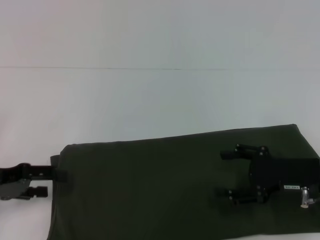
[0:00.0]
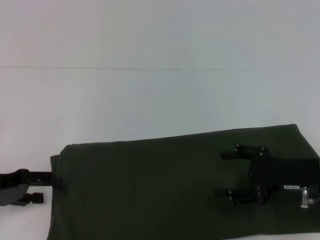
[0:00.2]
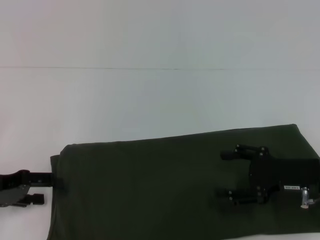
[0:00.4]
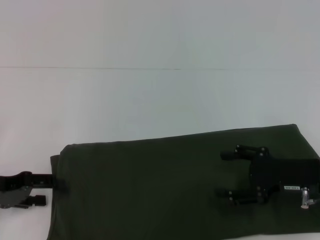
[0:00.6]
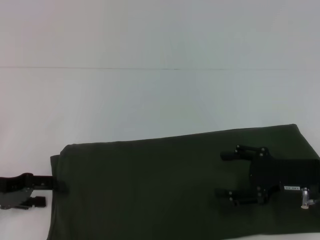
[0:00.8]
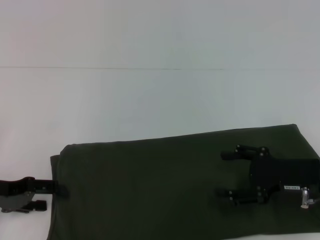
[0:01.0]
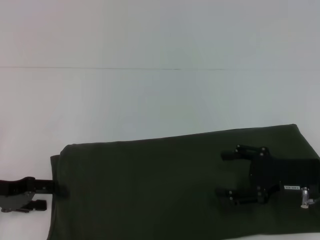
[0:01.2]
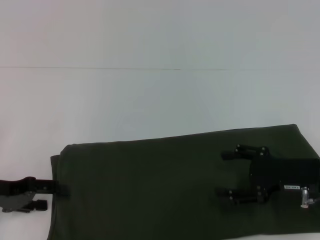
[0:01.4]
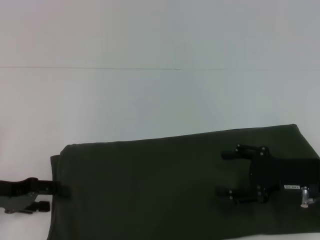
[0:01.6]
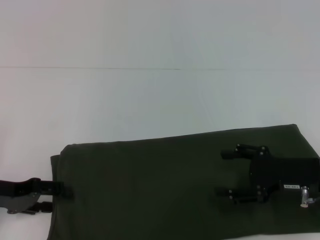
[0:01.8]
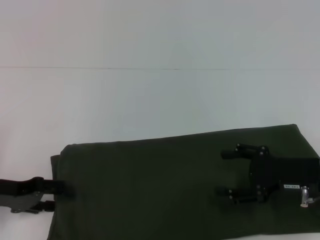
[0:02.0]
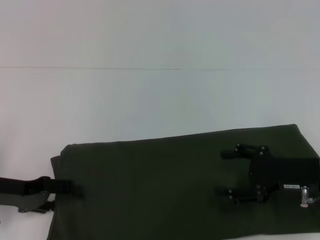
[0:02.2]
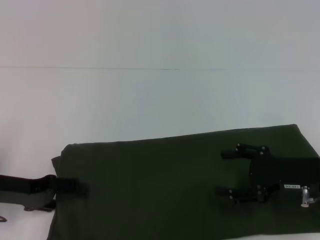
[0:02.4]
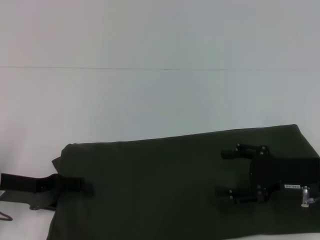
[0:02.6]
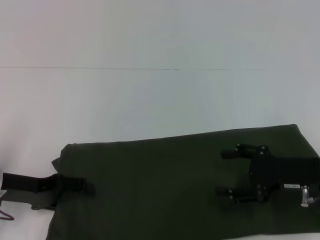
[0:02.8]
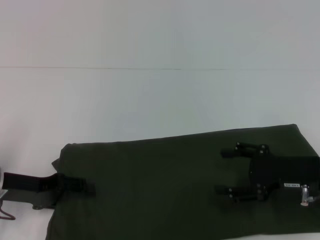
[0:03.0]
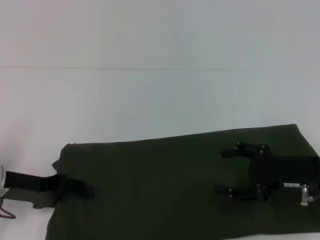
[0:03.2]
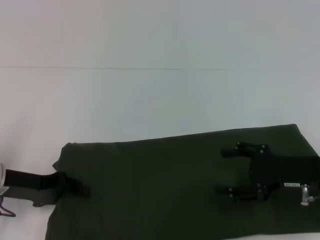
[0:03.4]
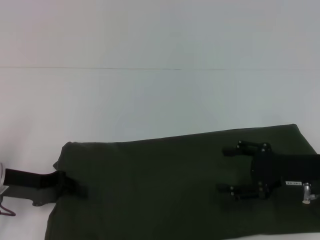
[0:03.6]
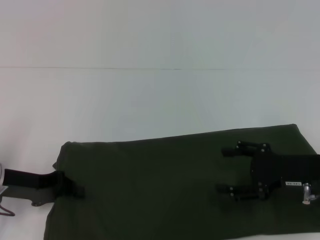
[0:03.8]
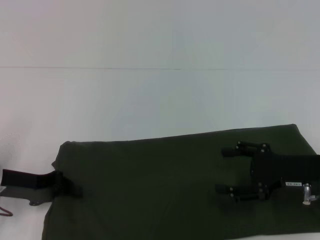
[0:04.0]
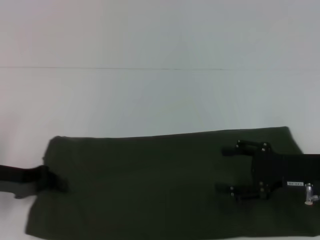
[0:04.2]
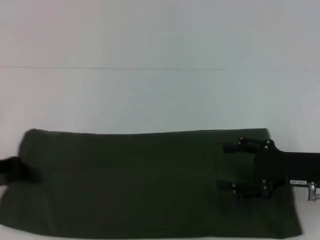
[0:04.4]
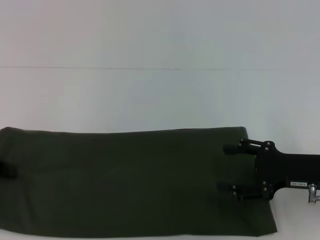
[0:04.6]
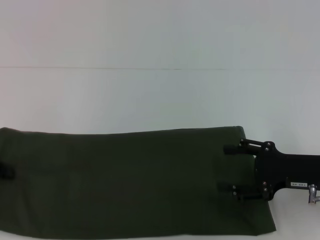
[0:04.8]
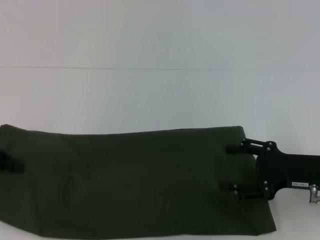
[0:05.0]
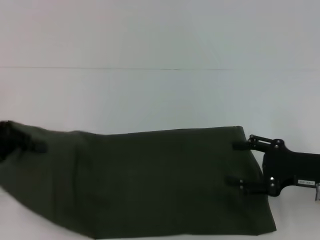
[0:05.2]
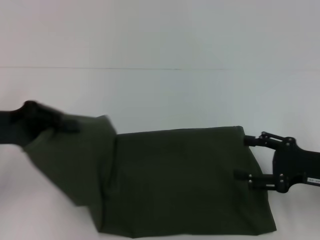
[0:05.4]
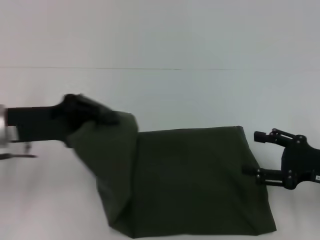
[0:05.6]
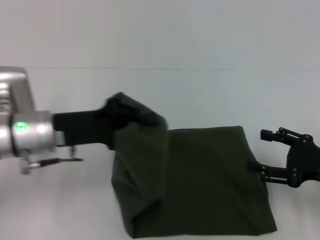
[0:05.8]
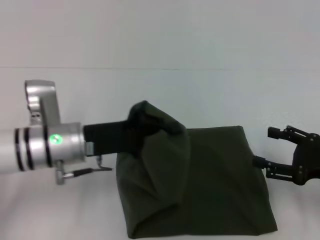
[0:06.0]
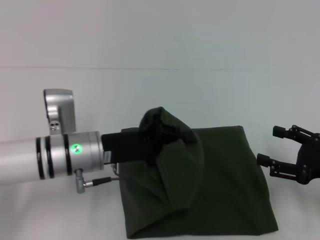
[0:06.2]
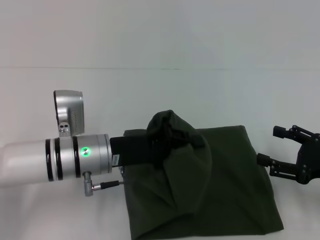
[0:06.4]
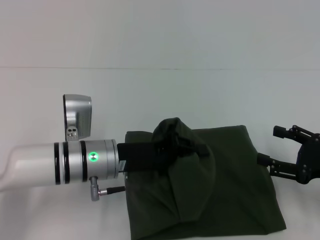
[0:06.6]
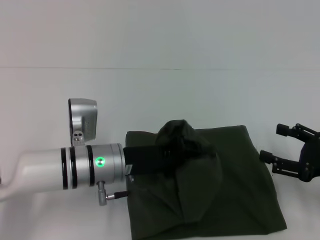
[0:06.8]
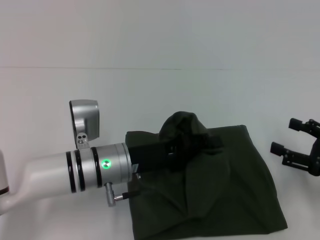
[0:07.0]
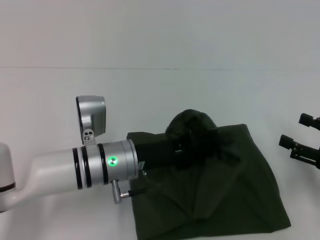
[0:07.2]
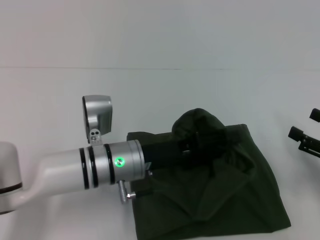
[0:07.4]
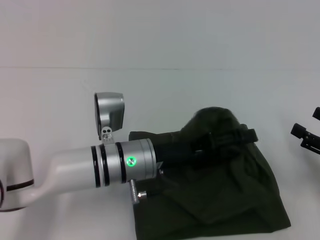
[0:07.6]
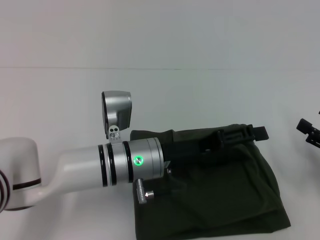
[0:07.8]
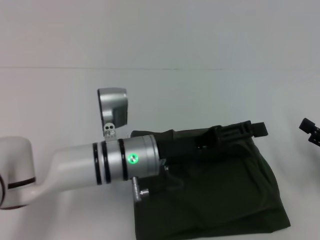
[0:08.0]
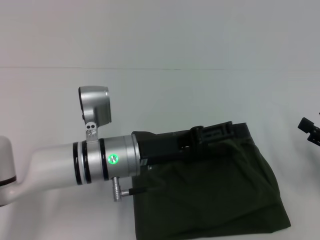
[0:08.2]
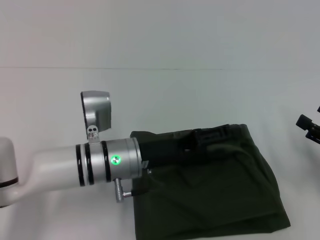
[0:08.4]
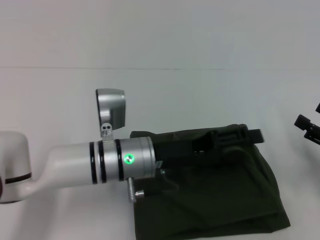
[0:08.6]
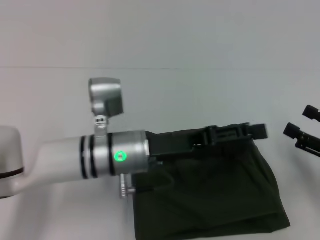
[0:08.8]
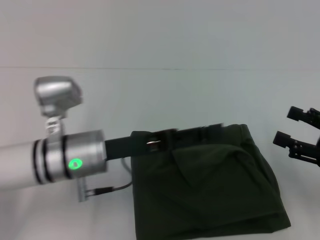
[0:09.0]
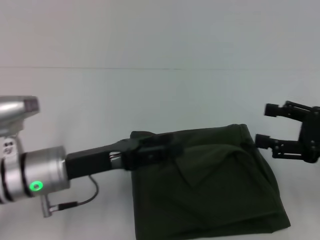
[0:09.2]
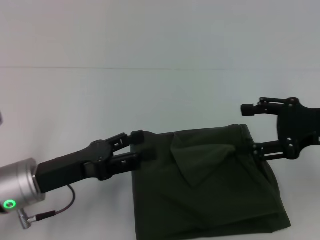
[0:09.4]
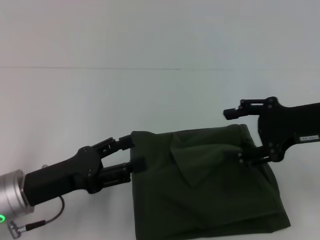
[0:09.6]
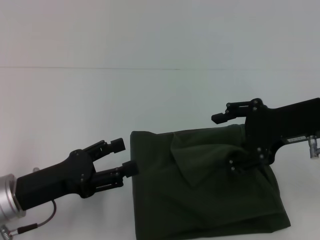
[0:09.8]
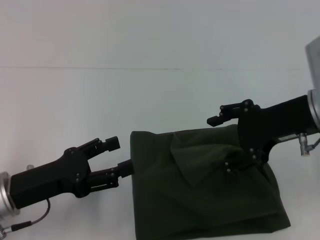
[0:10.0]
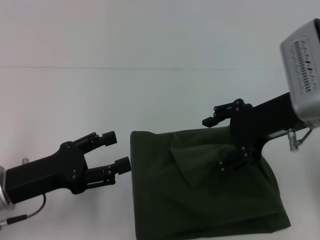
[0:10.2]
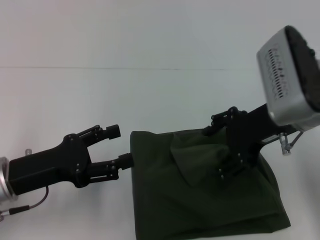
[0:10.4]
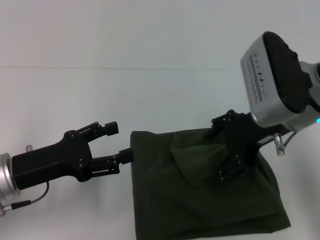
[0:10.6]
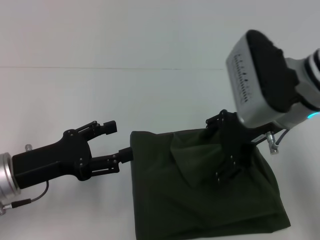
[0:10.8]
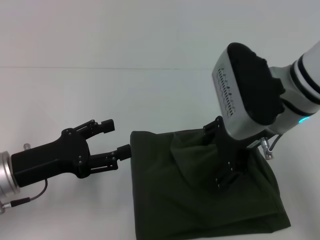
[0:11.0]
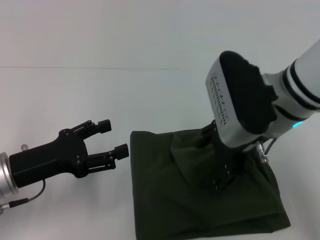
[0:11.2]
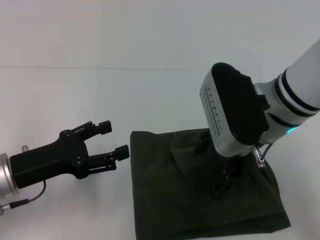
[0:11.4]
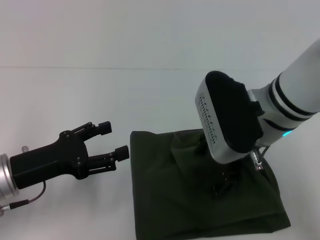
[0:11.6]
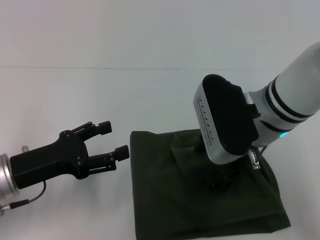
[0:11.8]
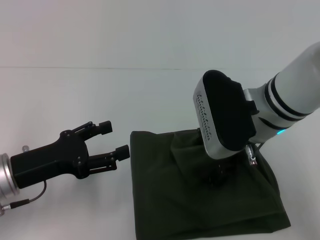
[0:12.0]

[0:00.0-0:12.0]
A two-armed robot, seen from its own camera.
Step, 0:00.0 to 0:08.0: Fold the clothes with your left hand.
0:00.0 to 0:03.0: The grippers move only a little.
0:03.0 to 0:04.4: The left gripper travels to the left by approximately 5 cm, and closes up.
0:04.4 to 0:06.0: The right gripper changes place by about 5 cm. Meanwhile the left gripper heads to the right, covering about 15 cm.
0:06.0 to 0:07.6: The left gripper travels to the right by roughly 10 cm, and opens its fingers.
0:07.6 to 0:09.0: The left gripper is displaced to the left by approximately 5 cm.
0:09.0 to 0:10.4: The right gripper goes roughly 20 cm to the left, upward and forward. The left gripper shifts about 10 cm to the left.
0:10.4 to 0:12.0: The right gripper shifts approximately 5 cm to the left.

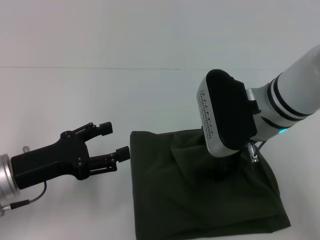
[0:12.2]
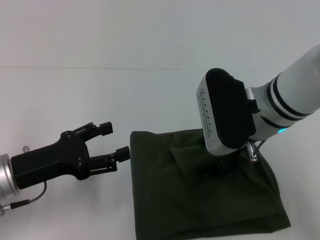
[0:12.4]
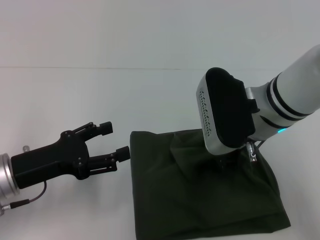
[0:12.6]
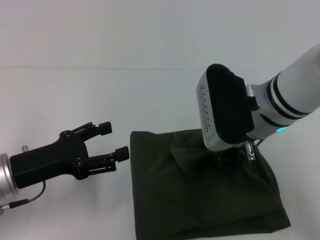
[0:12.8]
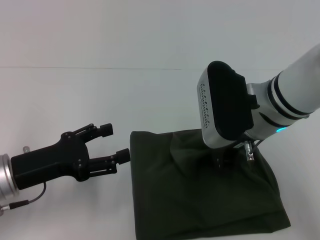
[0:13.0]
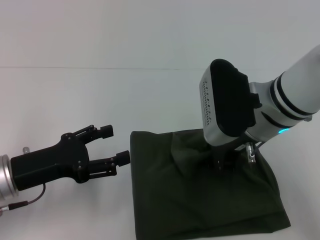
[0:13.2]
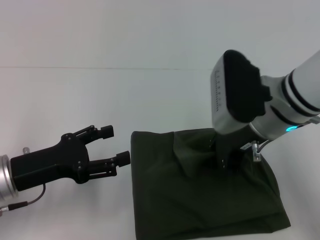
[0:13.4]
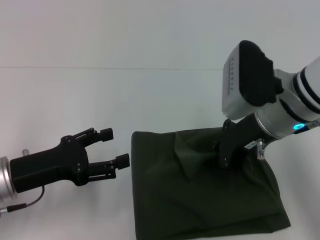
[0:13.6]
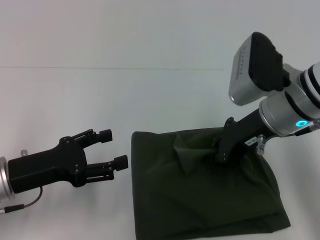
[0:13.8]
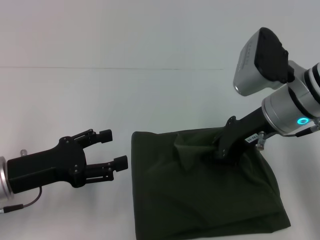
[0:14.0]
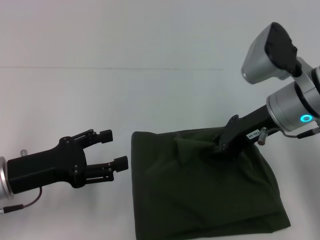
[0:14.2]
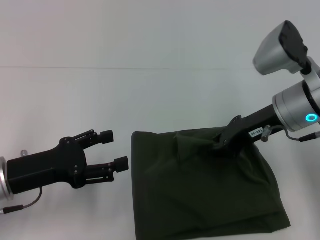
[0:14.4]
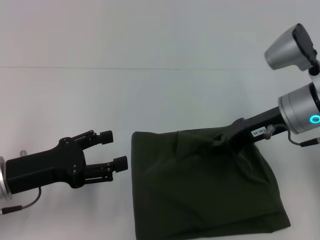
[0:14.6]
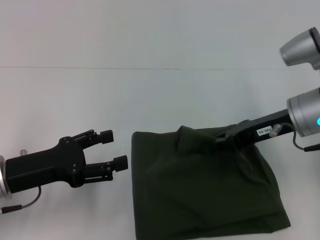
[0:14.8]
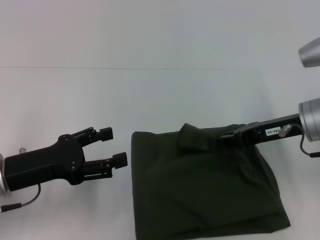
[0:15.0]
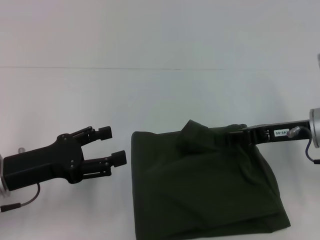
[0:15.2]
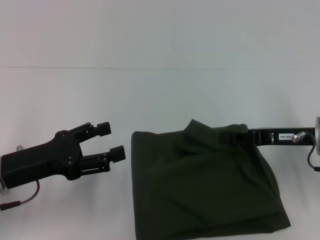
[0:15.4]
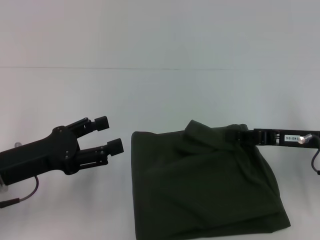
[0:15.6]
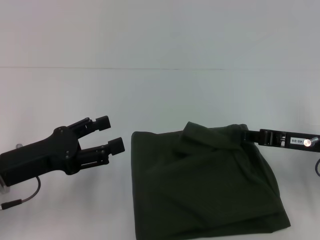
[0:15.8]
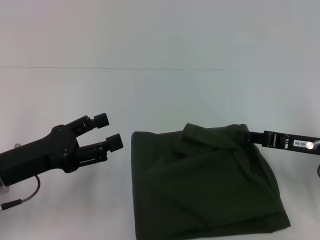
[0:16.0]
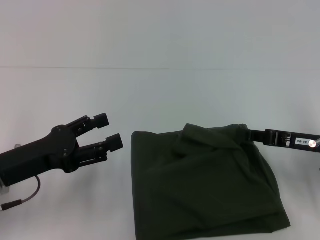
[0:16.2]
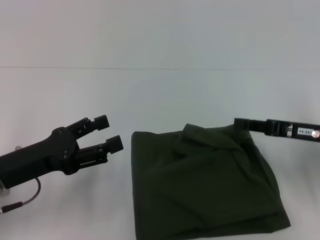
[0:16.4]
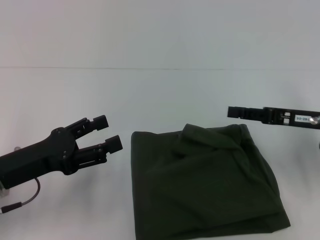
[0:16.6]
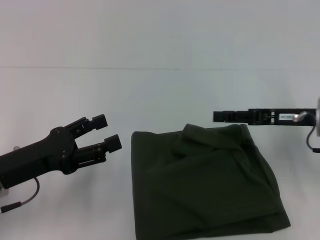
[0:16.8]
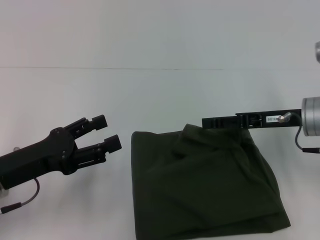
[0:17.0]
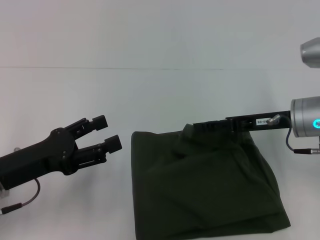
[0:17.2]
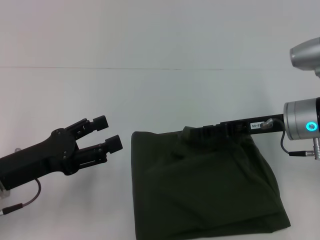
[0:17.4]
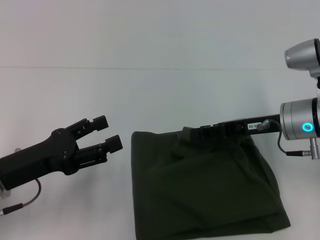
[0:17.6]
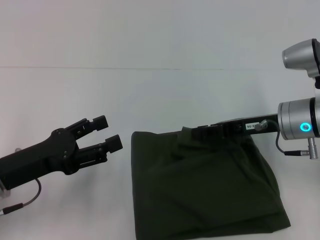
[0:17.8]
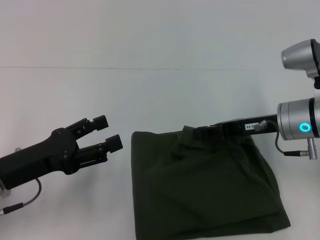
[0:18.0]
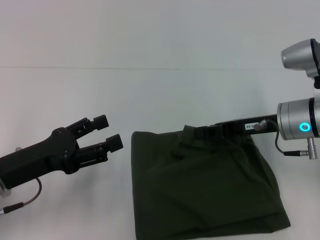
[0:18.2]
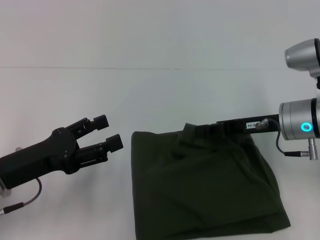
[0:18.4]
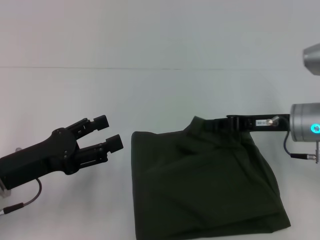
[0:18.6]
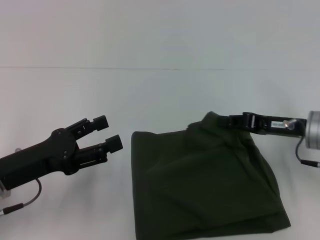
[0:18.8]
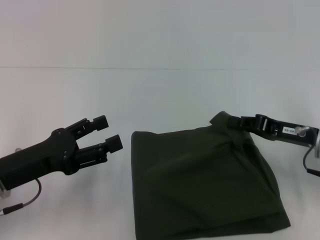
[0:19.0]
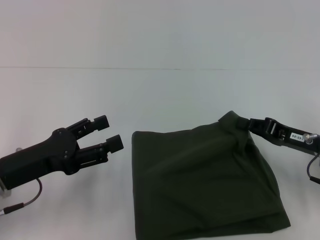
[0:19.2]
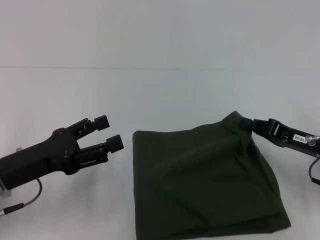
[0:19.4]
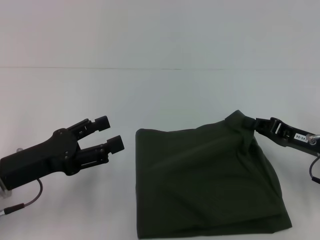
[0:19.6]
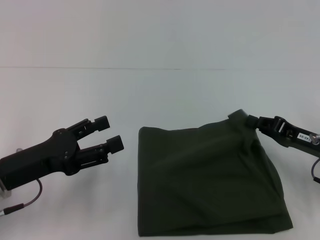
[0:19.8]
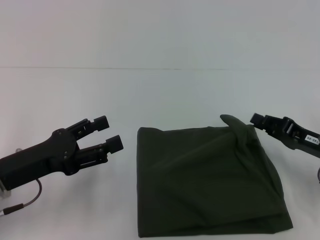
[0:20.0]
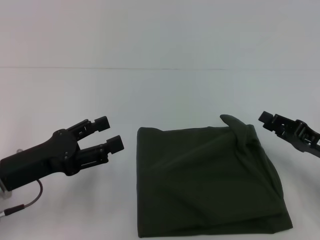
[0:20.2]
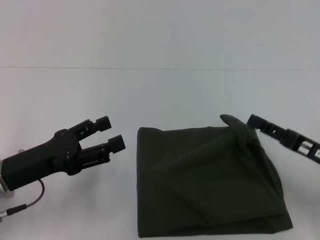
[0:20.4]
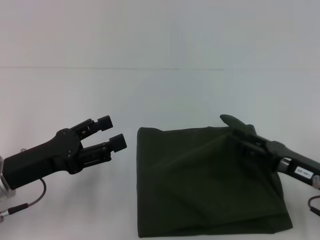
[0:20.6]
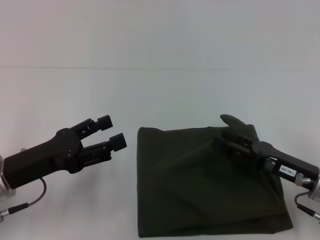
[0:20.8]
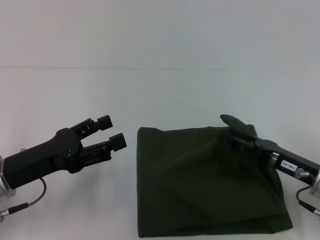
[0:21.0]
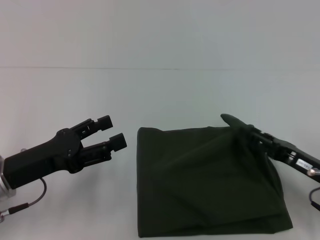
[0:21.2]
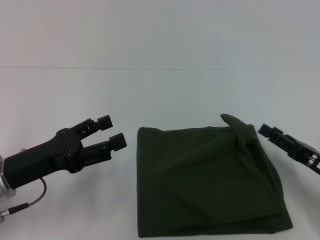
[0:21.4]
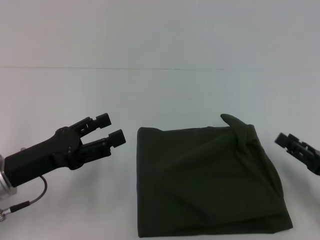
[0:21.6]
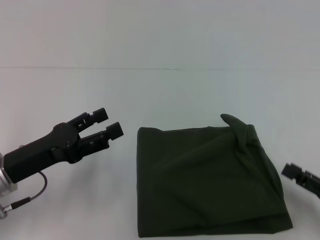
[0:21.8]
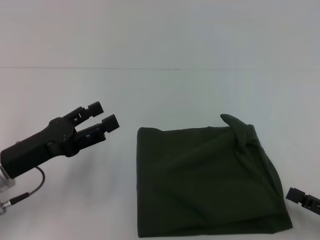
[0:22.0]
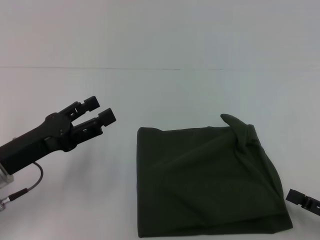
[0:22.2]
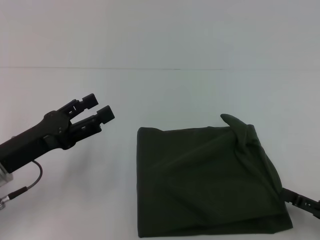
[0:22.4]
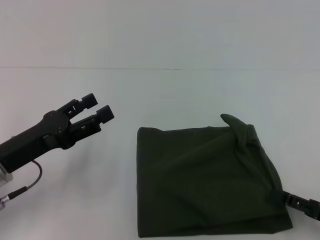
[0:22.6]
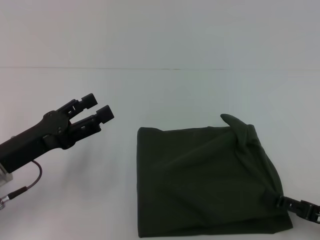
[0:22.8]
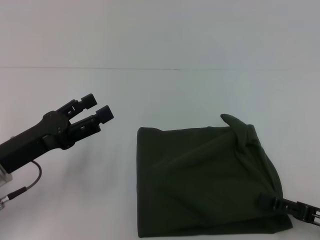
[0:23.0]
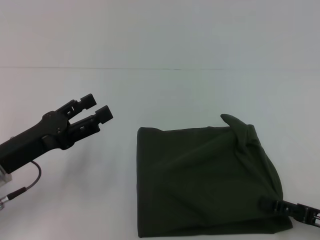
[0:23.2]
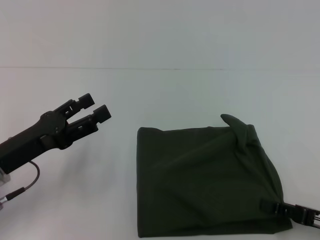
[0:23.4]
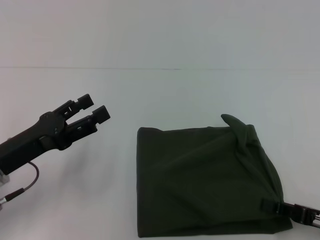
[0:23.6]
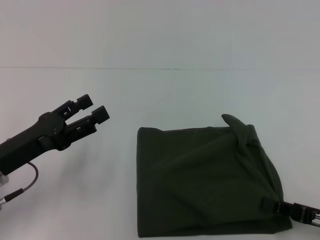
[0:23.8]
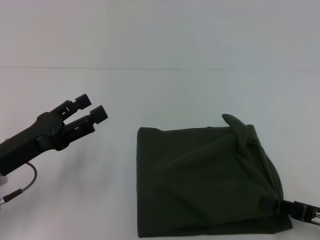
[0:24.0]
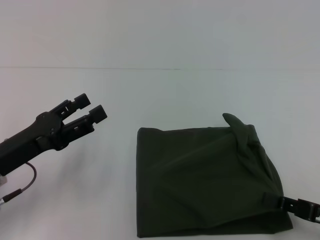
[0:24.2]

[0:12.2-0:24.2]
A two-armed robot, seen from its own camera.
0:12.2 to 0:13.8: The right gripper closes.
0:13.8 to 0:15.2: The right gripper heads to the right and downward, covering roughly 10 cm.
0:15.2 to 0:16.6: The grippers stay close to where they were, moving slightly.
0:16.6 to 0:18.2: The right gripper heads to the left, covering approximately 5 cm, and opens, then closes again.
0:18.2 to 0:19.8: The right gripper is displaced to the right, downward and backward by approximately 10 cm.
0:19.8 to 0:21.2: The right gripper opens.
0:21.2 to 0:22.6: The right gripper moves backward and to the right, about 10 cm.
0:22.6 to 0:24.2: The right gripper closes its fingers.
